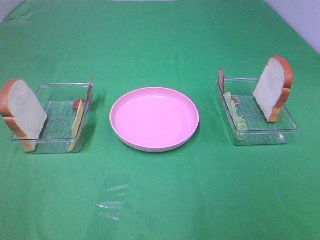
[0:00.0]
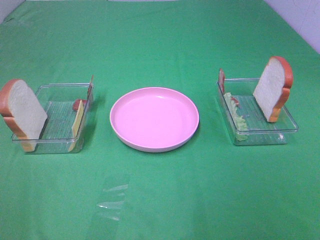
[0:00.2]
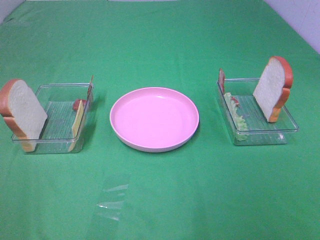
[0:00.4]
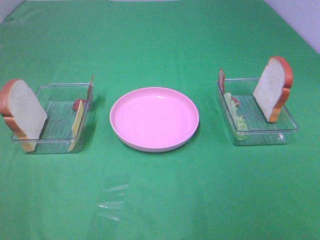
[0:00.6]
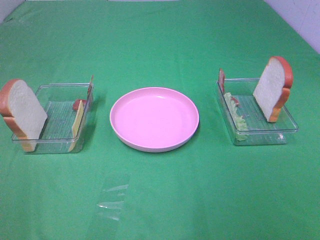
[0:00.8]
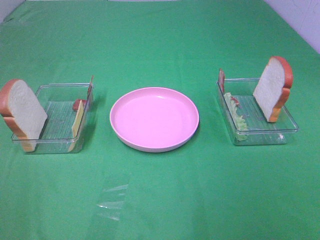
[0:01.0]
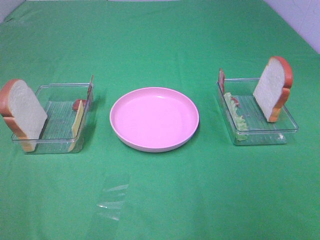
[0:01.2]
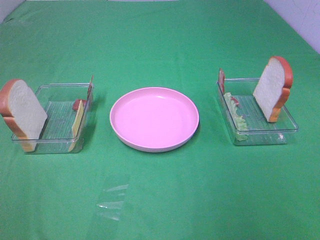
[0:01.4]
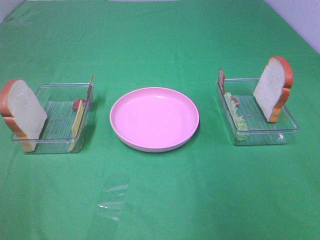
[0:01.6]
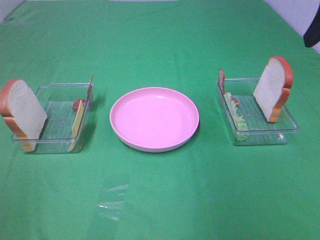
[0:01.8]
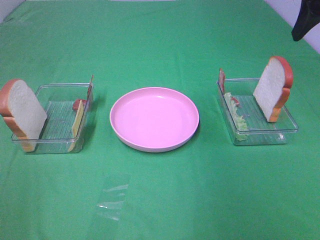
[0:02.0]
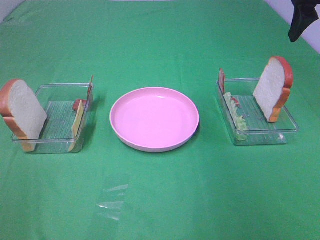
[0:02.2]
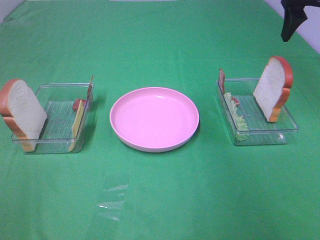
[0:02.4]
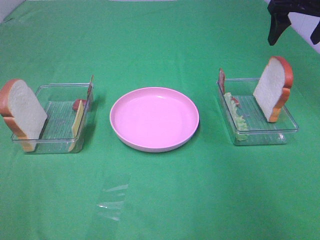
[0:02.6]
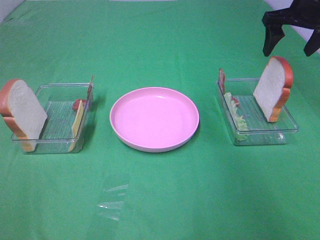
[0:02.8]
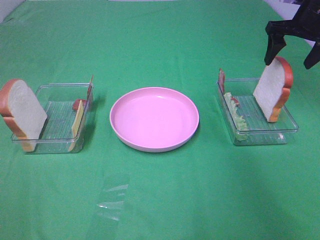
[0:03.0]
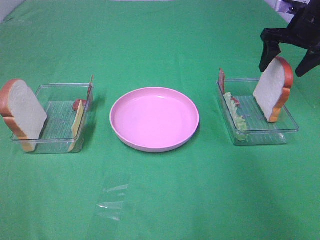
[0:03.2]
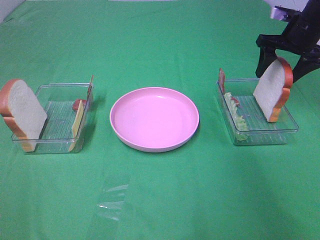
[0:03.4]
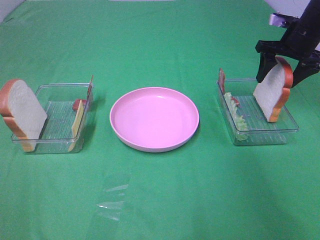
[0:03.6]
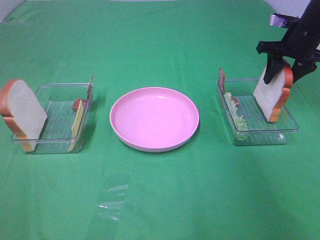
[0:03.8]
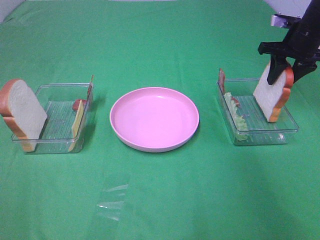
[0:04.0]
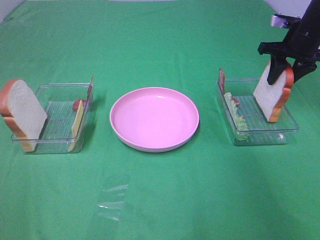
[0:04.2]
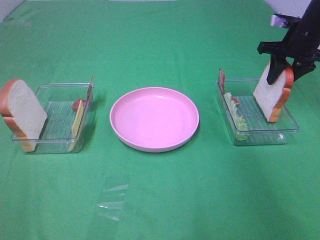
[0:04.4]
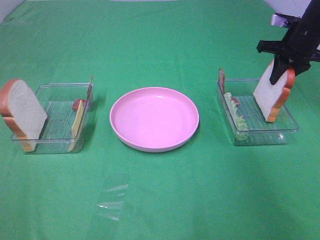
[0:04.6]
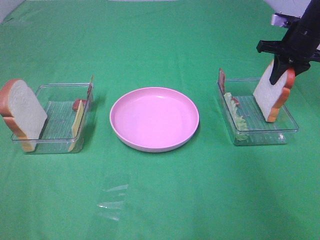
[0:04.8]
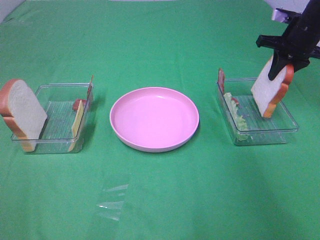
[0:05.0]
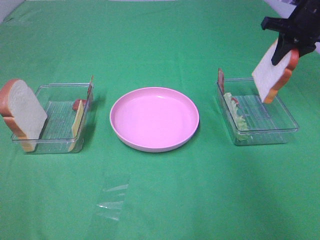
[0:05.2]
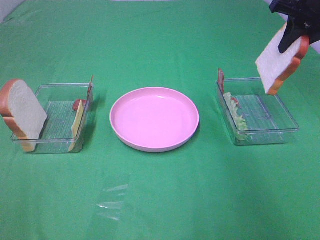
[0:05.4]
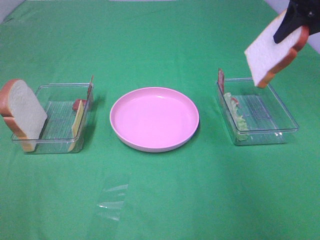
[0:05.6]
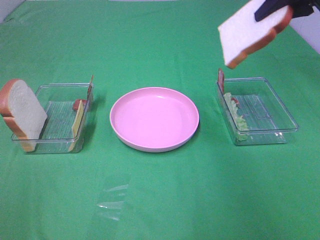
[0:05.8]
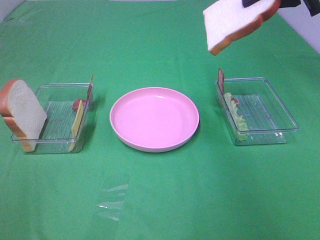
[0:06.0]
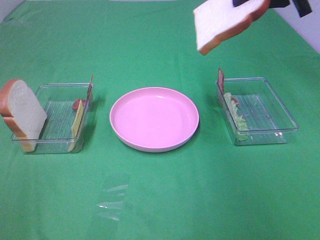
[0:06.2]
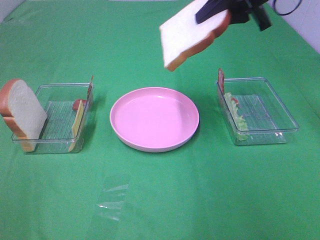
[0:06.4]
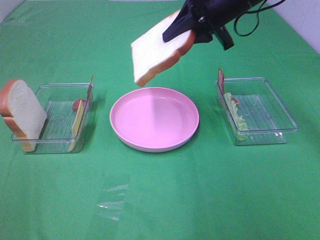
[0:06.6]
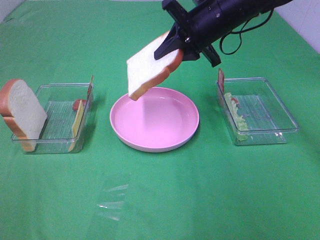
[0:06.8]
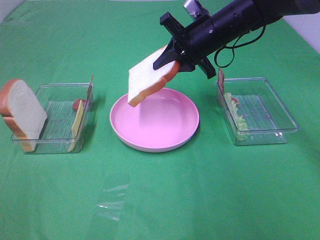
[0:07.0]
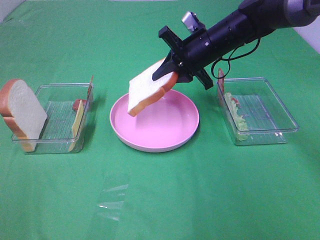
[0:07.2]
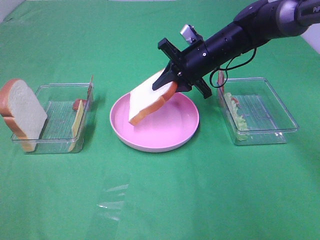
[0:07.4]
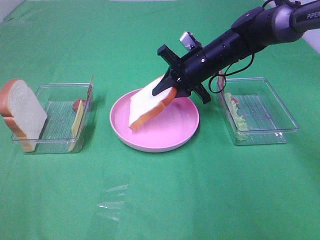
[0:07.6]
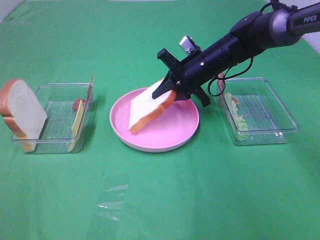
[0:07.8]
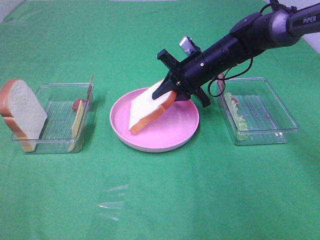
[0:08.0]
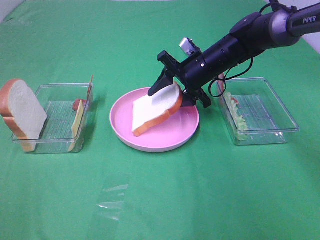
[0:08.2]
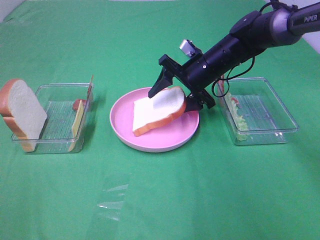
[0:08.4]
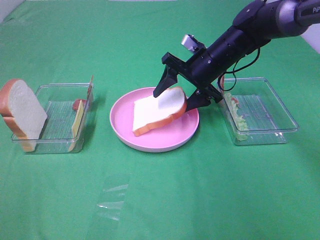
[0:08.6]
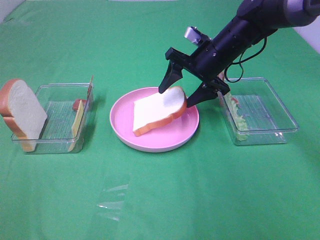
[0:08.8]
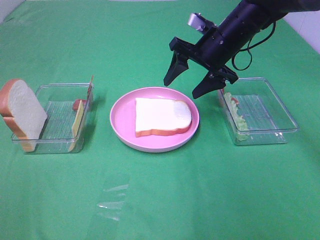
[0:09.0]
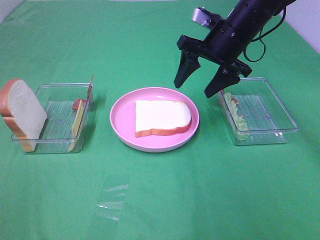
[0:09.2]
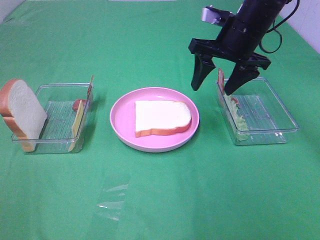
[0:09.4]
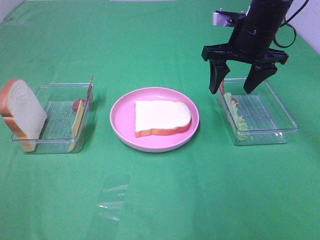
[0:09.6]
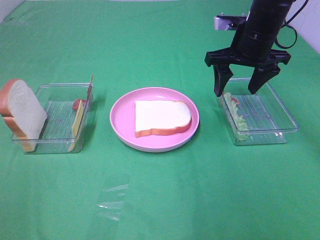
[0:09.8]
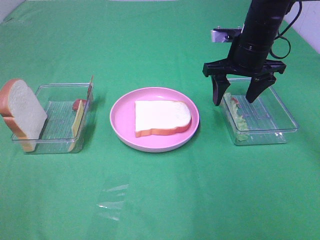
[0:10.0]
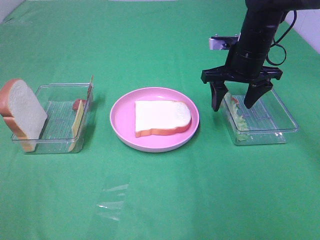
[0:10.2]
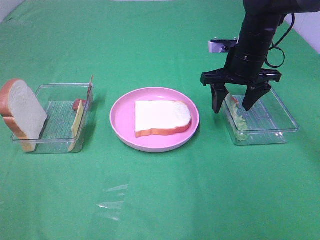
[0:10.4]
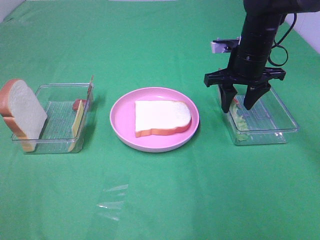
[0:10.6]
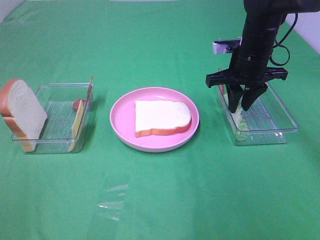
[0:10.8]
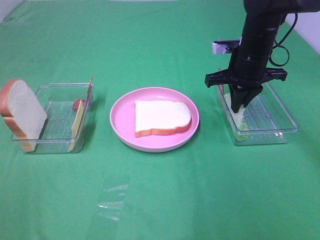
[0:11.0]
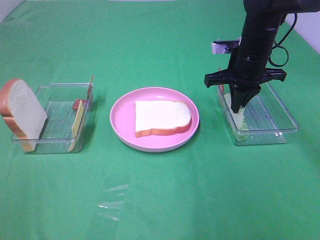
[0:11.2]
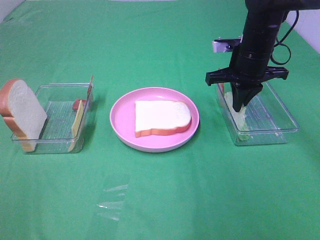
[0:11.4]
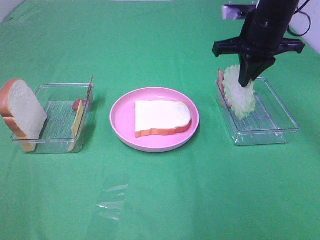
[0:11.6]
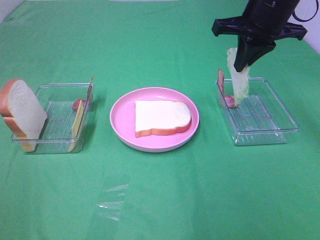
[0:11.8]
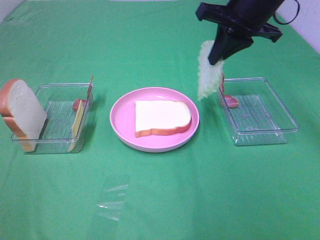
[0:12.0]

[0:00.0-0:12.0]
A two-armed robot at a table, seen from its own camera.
Task of the whole recording: Make sandwiches.
Step, 0:00.0 to 0:04.6: Right hand:grab the bread slice.
Step, 0:04.8 to 0:08.8: Right hand:place the bread slice on the plate.
Step, 0:09.0 to 0:11.2: Right hand:grab the lettuce slice.
0:01.6 to 0:03.0: The right gripper moves forward and downward, roughly 30 cm.
0:03.0 to 0:04.4: The right gripper closes its fingers.
0:04.4 to 0:06.0: The right gripper is displaced upward and backward by some 15 cm.
0:06.0 to 0:07.6: The right gripper shifts some 25 cm downward and to the left.
0:07.6 to 0:09.0: The right gripper is displaced upward by some 5 cm, and opens up.
0:10.4 to 0:12.0: The right gripper travels upward by about 10 cm, and closes.

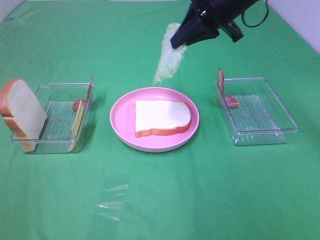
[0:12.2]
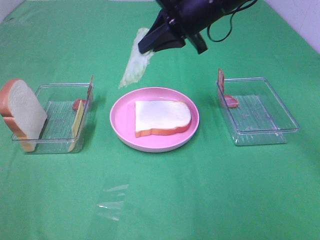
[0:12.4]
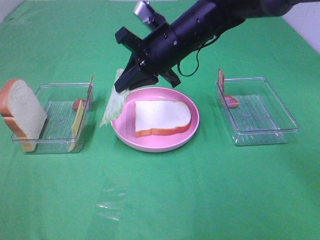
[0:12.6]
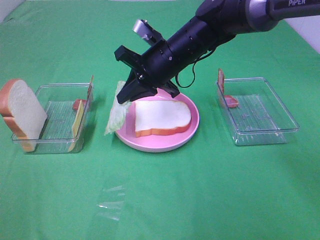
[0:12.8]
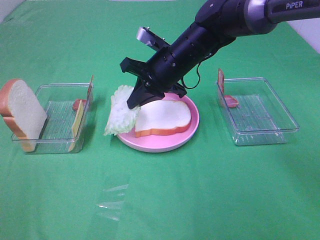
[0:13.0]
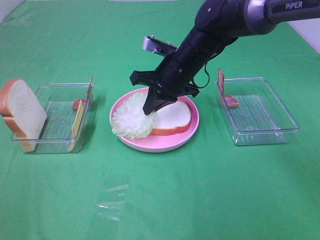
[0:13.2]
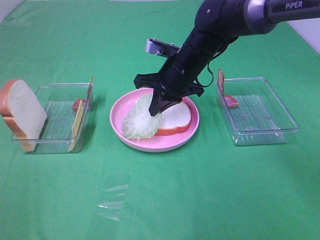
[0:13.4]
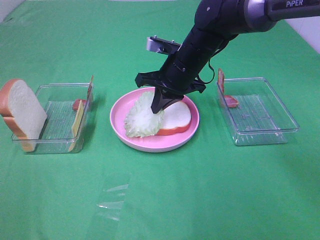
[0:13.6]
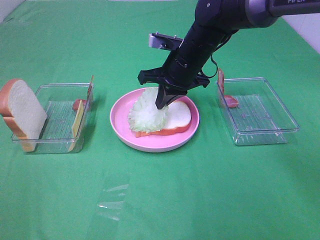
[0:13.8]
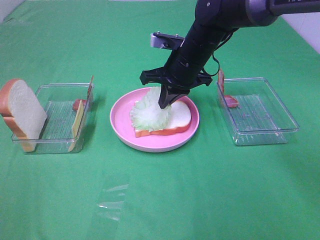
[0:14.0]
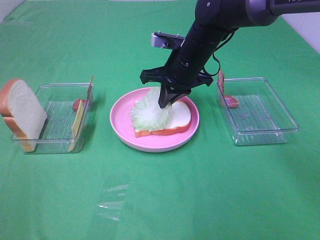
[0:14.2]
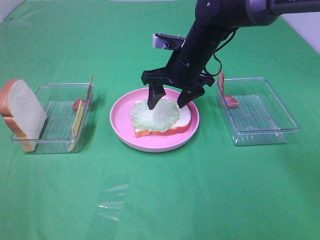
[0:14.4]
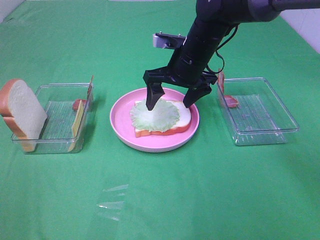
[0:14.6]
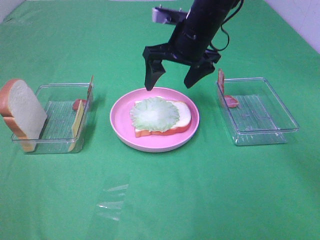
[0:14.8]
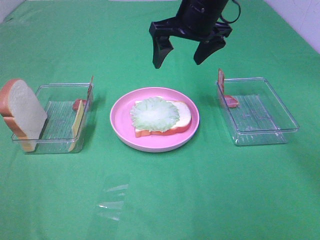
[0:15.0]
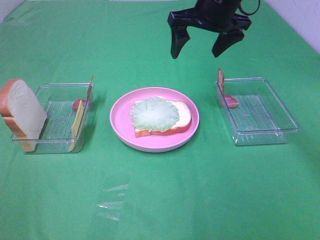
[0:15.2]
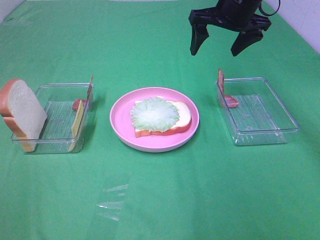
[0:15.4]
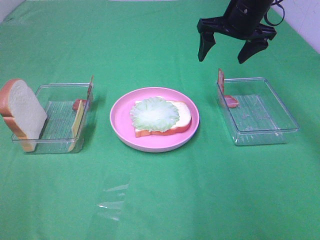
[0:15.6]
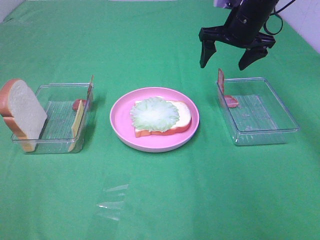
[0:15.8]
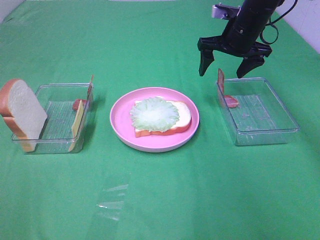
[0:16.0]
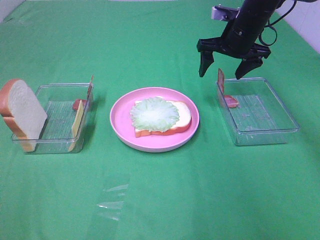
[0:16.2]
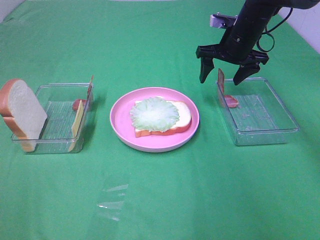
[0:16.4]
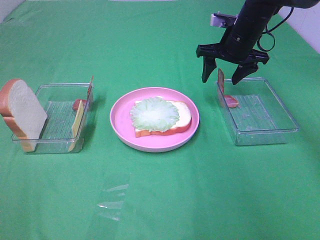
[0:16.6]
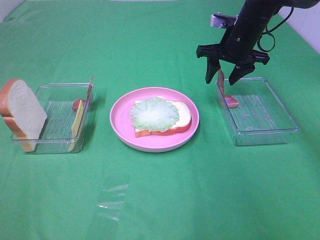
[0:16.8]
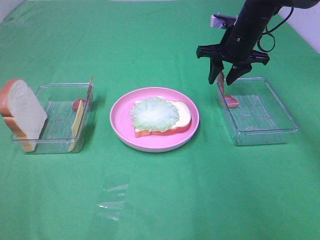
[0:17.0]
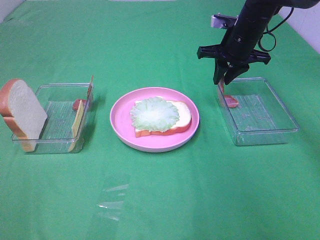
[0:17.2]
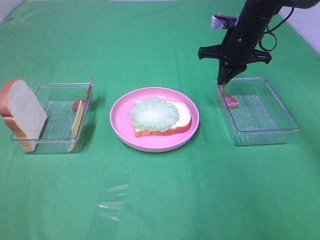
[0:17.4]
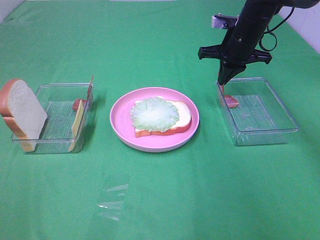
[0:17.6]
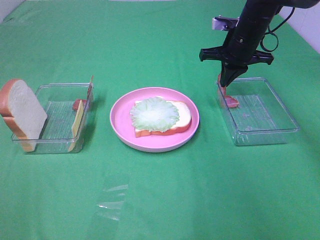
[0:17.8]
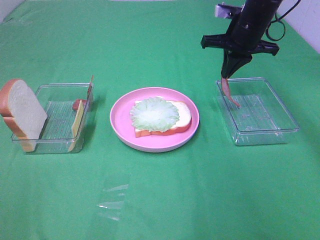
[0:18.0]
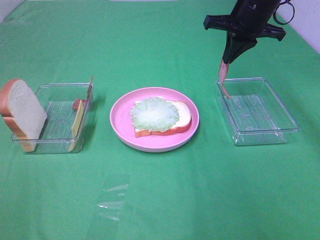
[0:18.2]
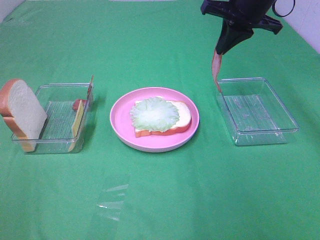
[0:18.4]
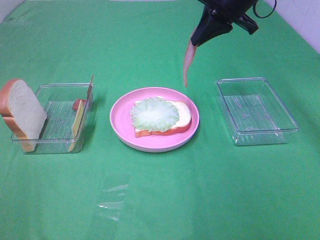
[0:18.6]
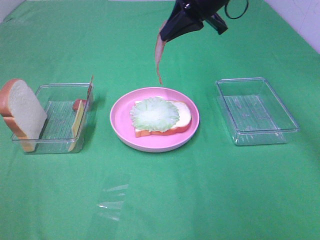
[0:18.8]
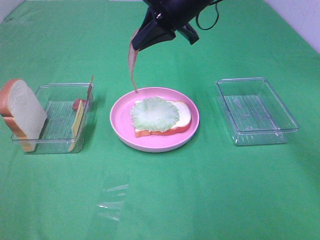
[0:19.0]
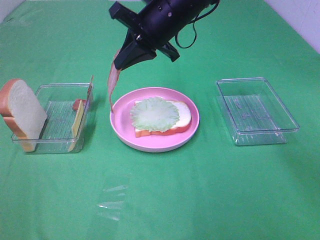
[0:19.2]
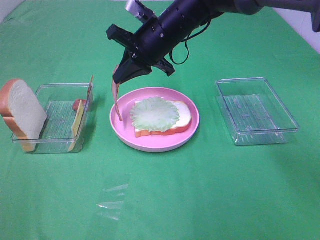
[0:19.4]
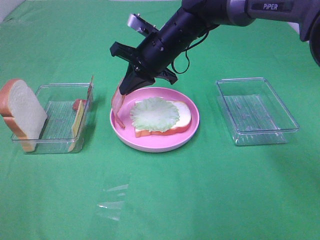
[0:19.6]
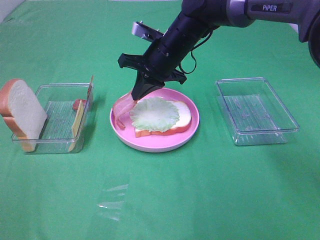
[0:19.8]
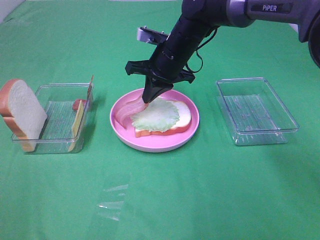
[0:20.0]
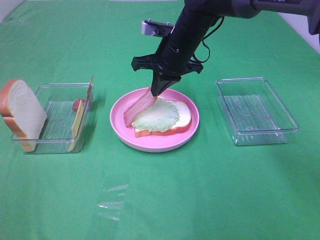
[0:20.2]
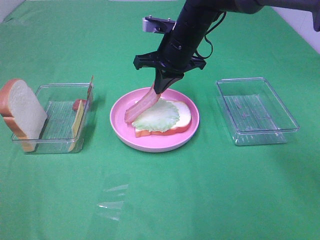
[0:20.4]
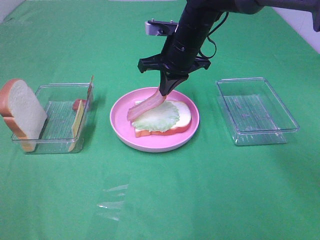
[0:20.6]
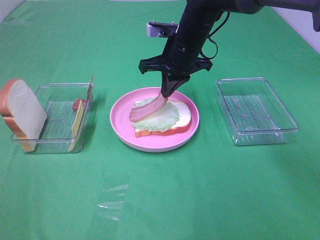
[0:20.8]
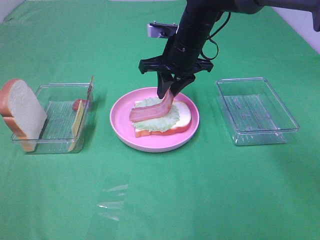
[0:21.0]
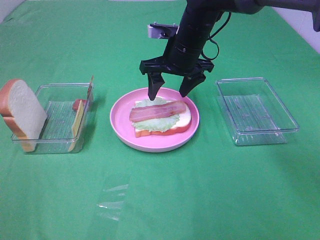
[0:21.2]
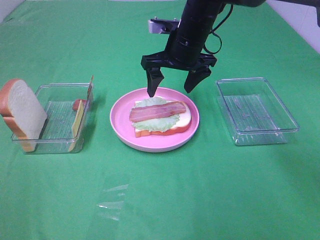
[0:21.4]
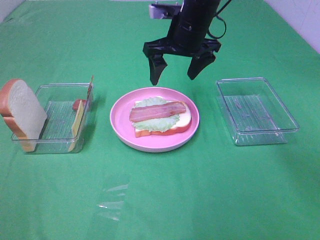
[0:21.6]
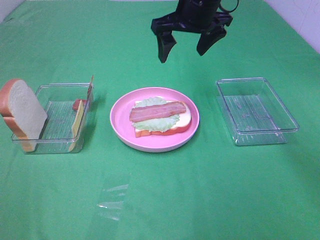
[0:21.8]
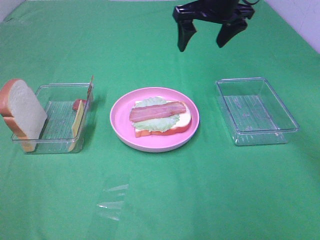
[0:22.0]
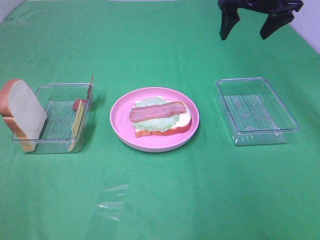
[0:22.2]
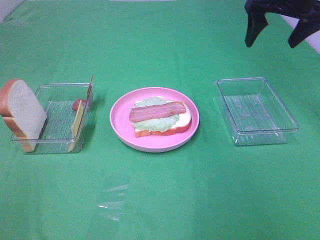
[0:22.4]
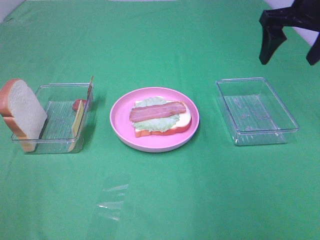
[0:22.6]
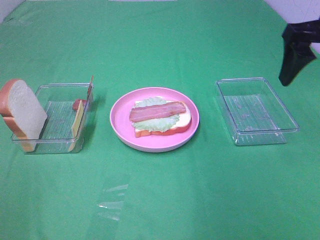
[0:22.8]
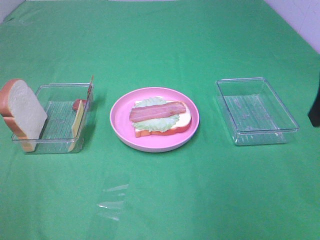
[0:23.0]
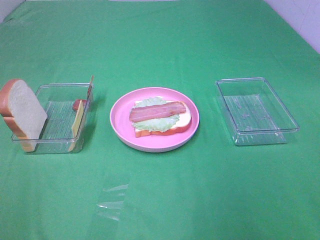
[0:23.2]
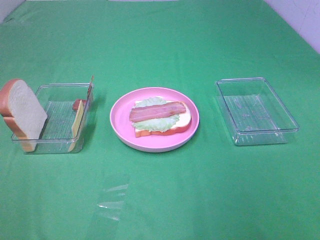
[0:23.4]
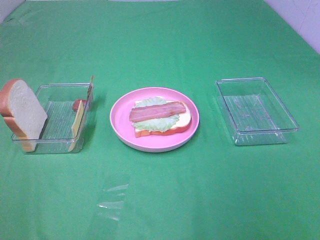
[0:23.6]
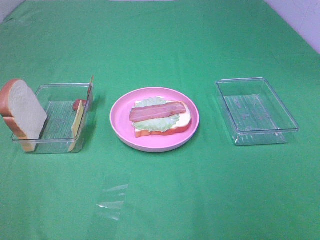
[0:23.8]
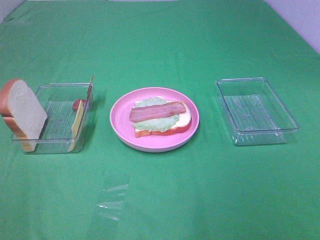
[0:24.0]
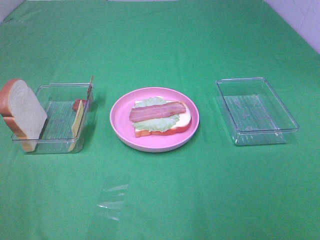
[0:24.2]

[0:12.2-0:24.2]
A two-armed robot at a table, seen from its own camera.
Task of the whole recording: Make sandwiches.
Step, 0:12.2 to 0:14.4: Right hand:place the lettuce slice on the bread slice.
Step, 0:14.6 to 0:17.6: Right hand:grab the bacon.
Step, 0:17.8 to 0:21.2: Right hand:place bacon on lettuce slice.
0:12.2 to 0:13.8: The right gripper shifts approximately 15 cm downward and to the left.
0:13.8 to 0:15.2: The right gripper moves upward and to the right, about 10 cm, and opens its fingers.
0:15.2 to 0:16.6: The right gripper shifts some 10 cm downward and to the right.
0:16.6 to 0:18.2: The right gripper shifts some 5 cm upward, and closes.
0:18.2 to 0:19.8: The right gripper travels to the left and downward by about 15 cm.
0:19.8 to 0:21.2: The right gripper opens.
0:21.2 to 0:22.6: The right gripper heads to the right and upward, covering some 25 cm.
0:22.6 to 0:24.2: The right gripper goes approximately 35 cm backward.
